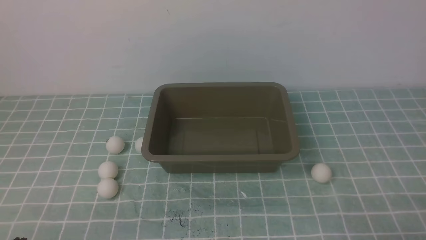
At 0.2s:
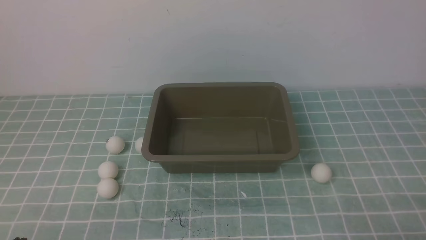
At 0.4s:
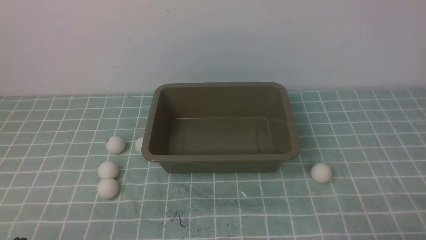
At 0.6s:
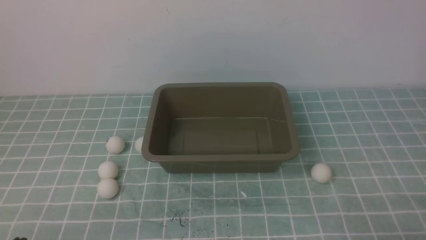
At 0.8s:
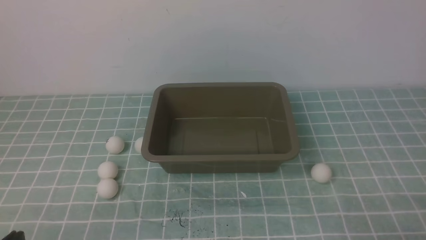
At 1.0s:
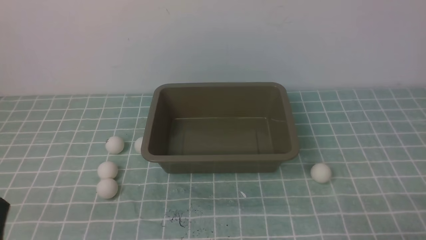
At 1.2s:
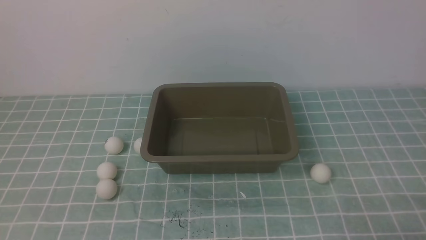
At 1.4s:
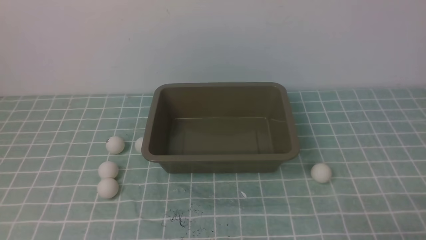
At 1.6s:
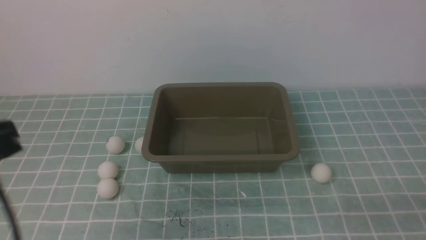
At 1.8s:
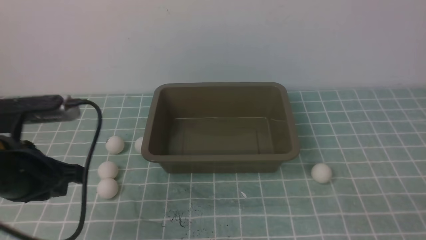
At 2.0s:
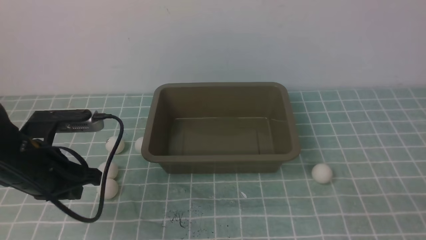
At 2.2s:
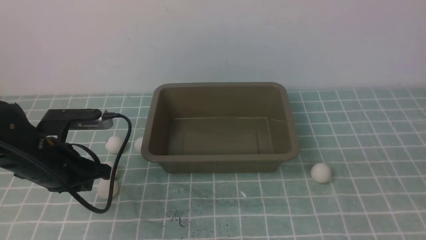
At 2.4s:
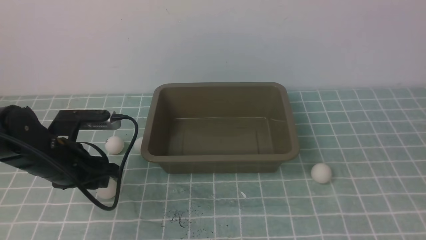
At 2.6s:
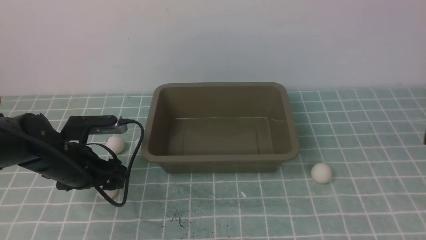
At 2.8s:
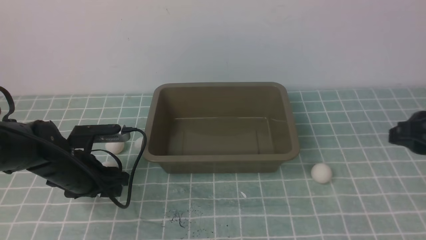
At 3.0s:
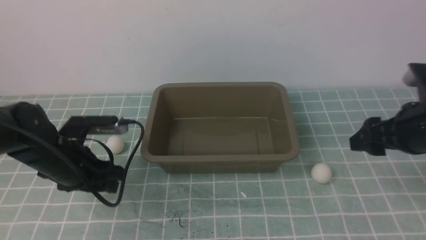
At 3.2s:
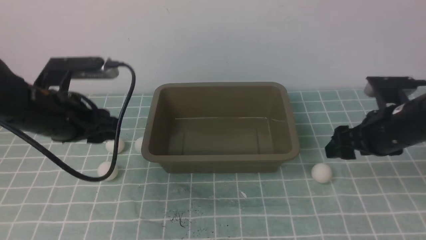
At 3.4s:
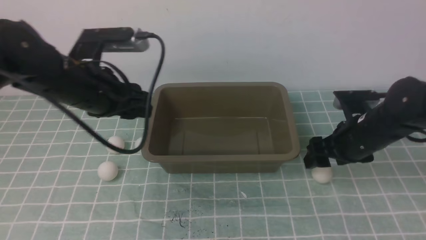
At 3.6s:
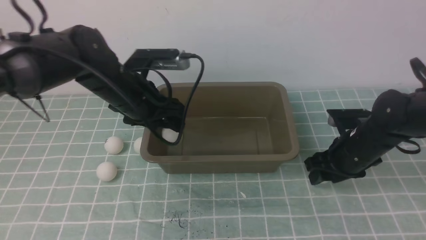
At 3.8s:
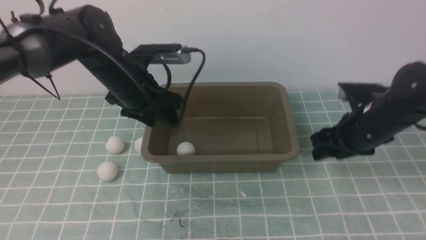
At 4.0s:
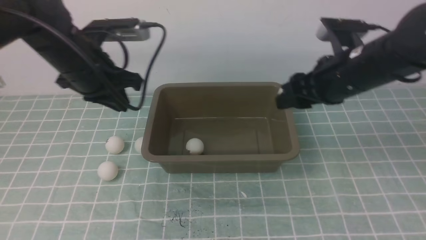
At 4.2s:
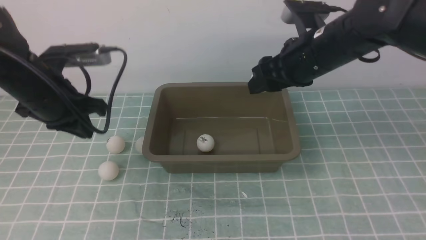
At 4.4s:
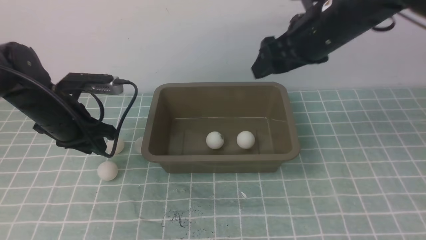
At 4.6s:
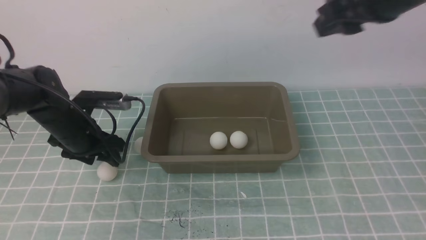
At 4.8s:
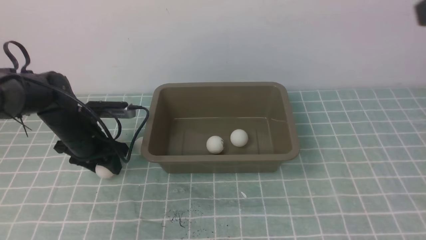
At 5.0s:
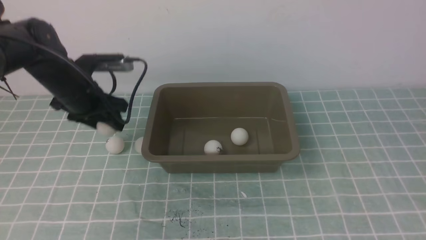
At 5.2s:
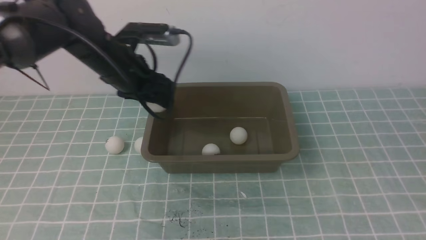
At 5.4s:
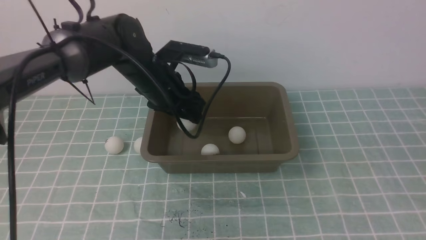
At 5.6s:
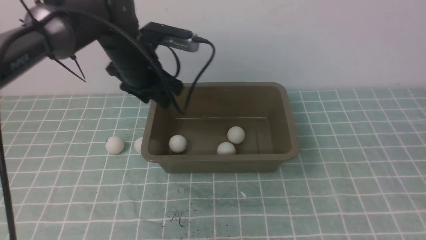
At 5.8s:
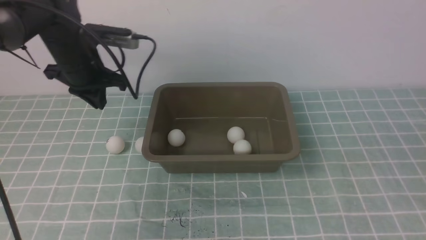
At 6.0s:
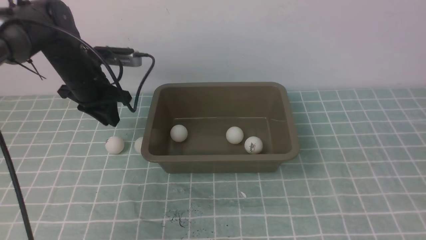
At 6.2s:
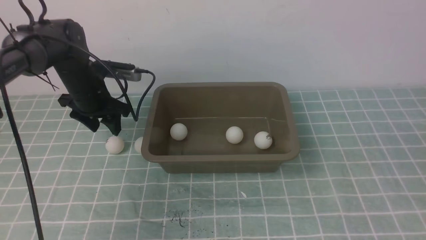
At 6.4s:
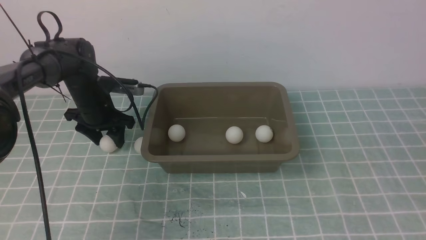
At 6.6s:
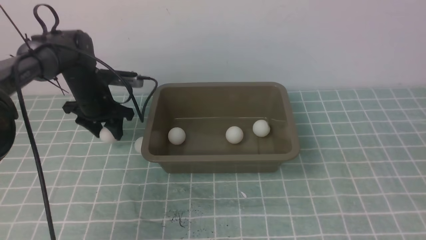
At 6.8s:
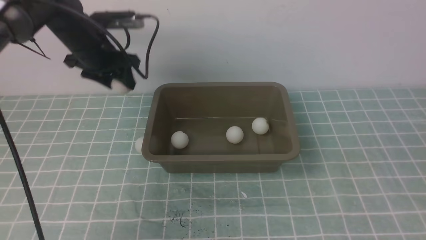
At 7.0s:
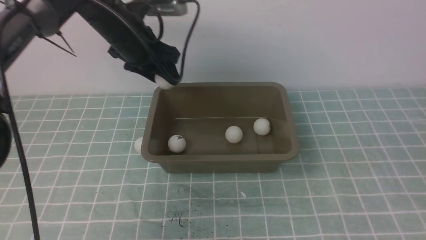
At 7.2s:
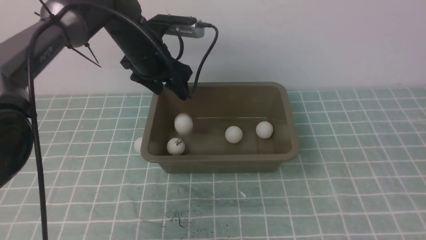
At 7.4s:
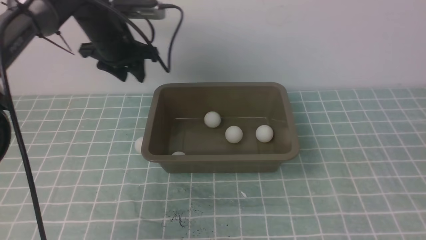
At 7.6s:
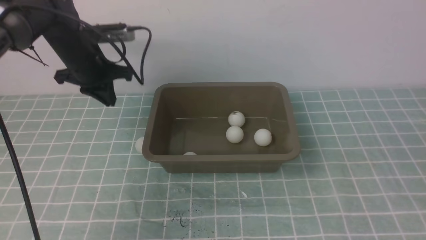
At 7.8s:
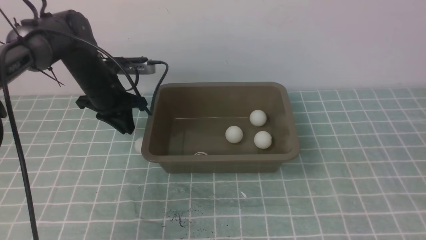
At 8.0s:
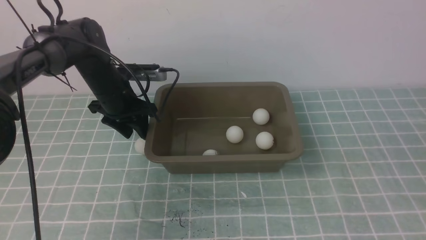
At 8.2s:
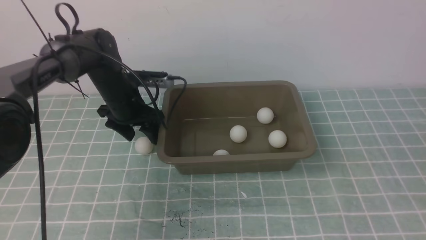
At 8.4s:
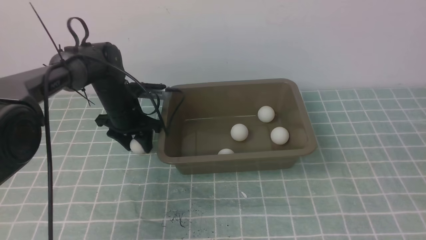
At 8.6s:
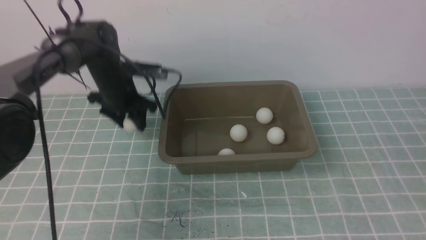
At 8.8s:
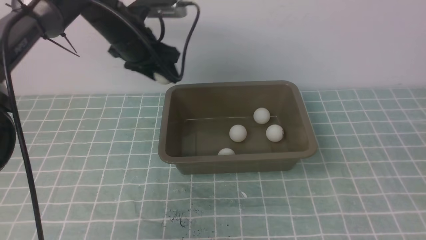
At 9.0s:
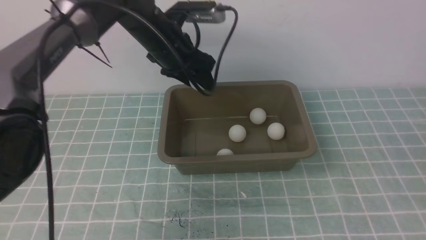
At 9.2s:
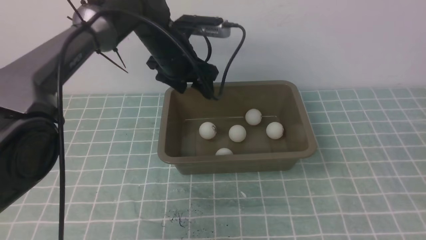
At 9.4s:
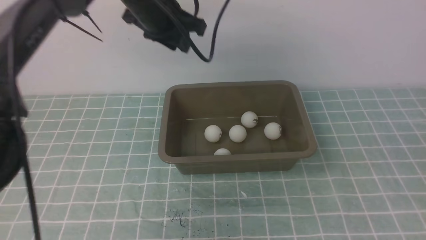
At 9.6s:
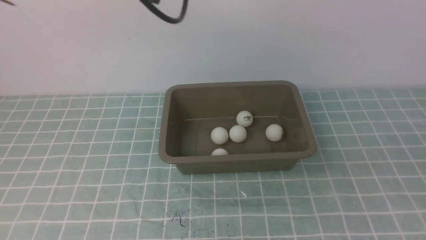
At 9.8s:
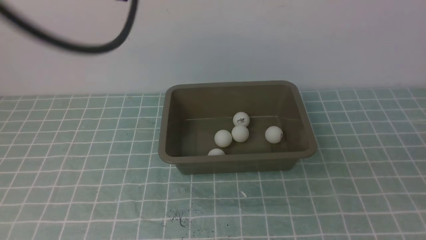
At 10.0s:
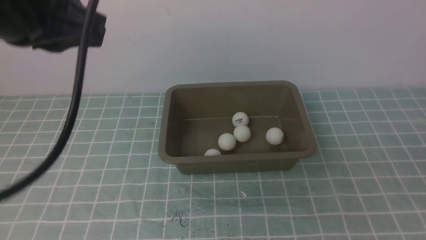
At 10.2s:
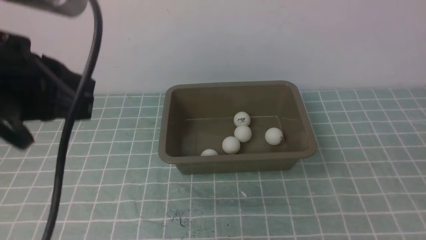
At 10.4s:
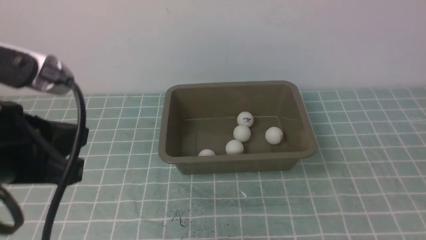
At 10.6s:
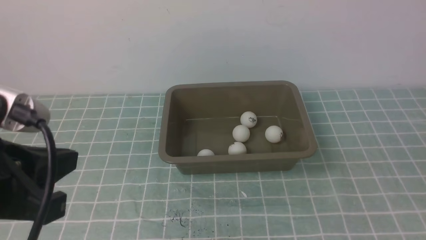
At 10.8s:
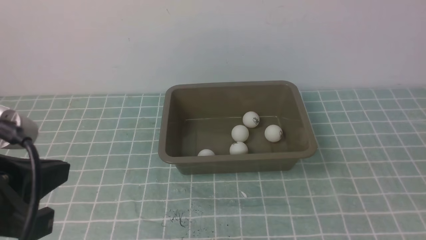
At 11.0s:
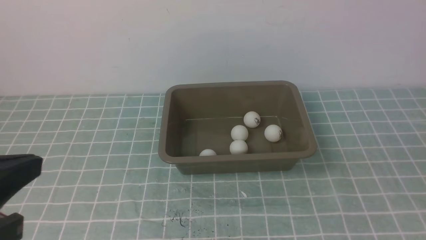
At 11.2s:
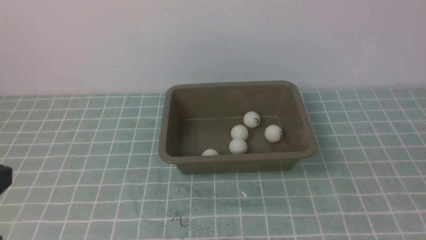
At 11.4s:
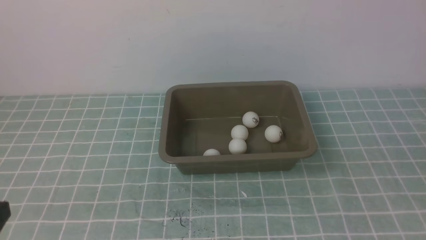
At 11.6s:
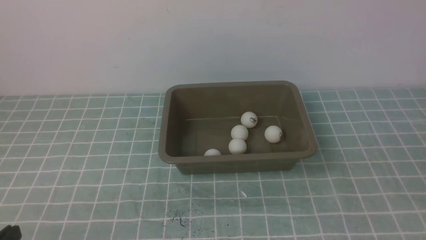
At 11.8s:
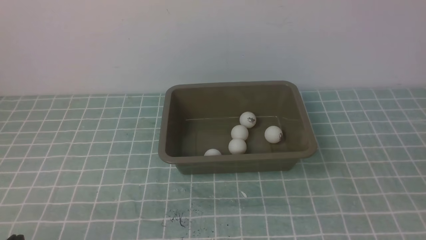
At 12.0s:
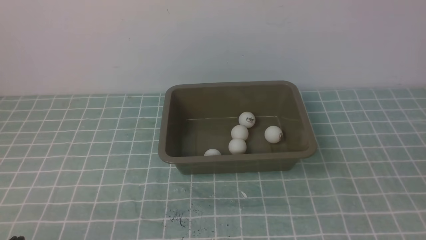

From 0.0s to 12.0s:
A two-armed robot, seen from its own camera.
Step, from 0.0s to 2.6s: use the left arm to clamp the table tennis ball closest to it.
Step, from 3.0s to 3.2s: use the left arm to put the table tennis ball into the box.
Step, from 3.4s to 4.0s: use the right arm to clamp the table tennis ball closest to it.
Step, from 4.2s to 4.6s: use the right arm to put the table tennis ball into the box.
Step, from 5.0s to 5.4s: use the left arm to put the table tennis ball into the box.
Step, from 5.6s to 6.8s: use the left arm to clamp the table tennis ball closest to it.
Step, from 7.0s to 7.4s: use the left arm to put the table tennis ball into the box.
Step, from 7.6s to 8.6s: use the left arm to clamp the table tennis ball closest to it.
Step, from 9.0s to 9.2s: use the left arm to put the table tennis ball into the box.
From 0.0s to 1.6s: The left gripper goes roughly 20 cm upward and forward.
From 1.6s to 3.0s: The right gripper is displaced forward by roughly 20 cm, and opens its fingers. The left gripper moves forward and downward, about 20 cm, and opens its fingers.
From 3.0s to 4.4s: The left gripper is displaced forward by some 5 cm, goes to the right and returns, about 5 cm each way, and closes, then opens again. Meanwhile the right gripper goes about 20 cm upward, to the left and forward.
From 4.4s to 6.0s: The right gripper is displaced backward and to the right by approximately 35 cm, and closes; the left gripper moves forward, some 10 cm, and travels to the right and back again, some 10 cm each way.
From 6.0s to 7.6s: The left gripper goes up and down, some 10 cm each way, reversing 2 times, and opens and closes again.
From 7.6s to 9.0s: The left gripper goes approximately 10 cm to the right, and opens up.
From 9.0s to 10.4s: The left gripper moves backward, approximately 30 cm, and closes.
From 10.4s to 12.0s: The left gripper shifts about 20 cm downward and backward.

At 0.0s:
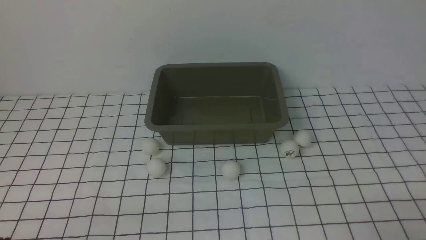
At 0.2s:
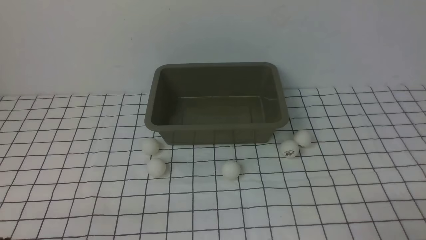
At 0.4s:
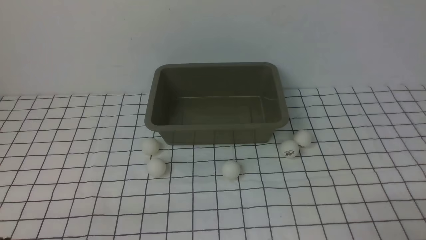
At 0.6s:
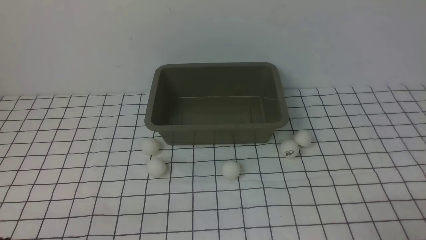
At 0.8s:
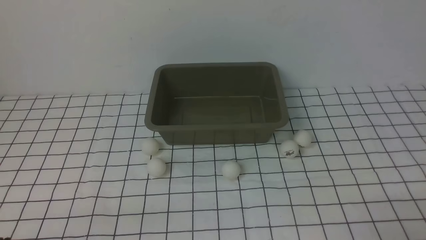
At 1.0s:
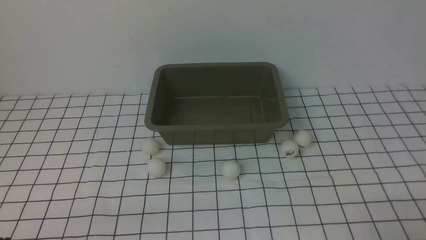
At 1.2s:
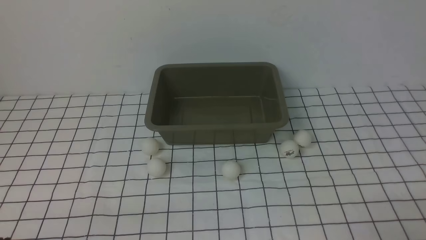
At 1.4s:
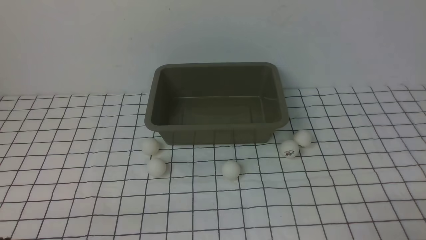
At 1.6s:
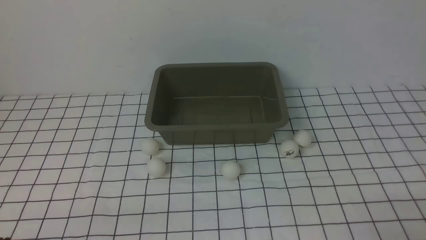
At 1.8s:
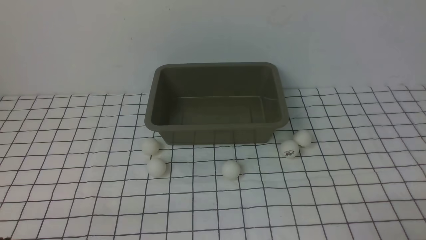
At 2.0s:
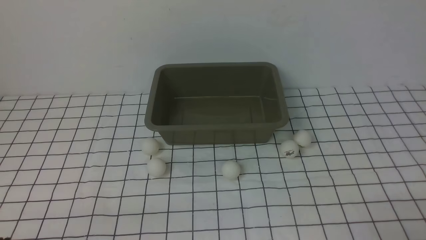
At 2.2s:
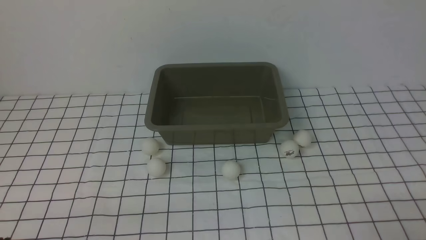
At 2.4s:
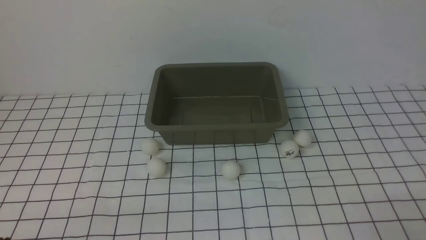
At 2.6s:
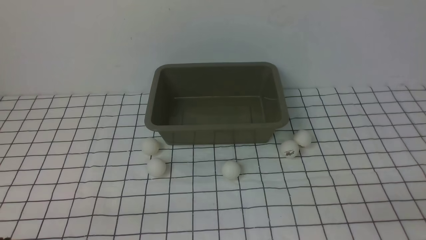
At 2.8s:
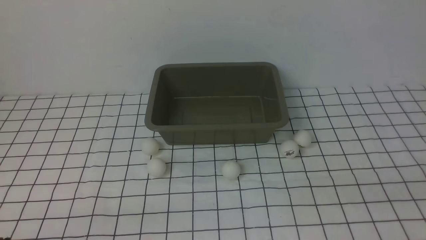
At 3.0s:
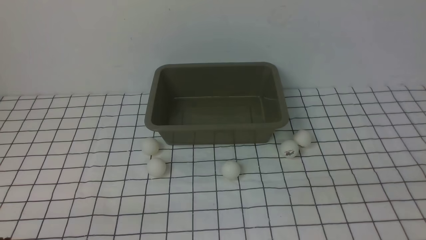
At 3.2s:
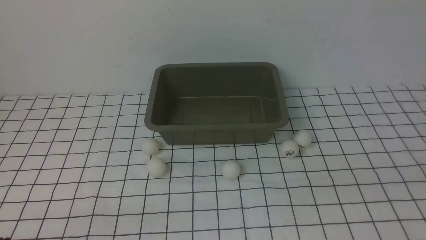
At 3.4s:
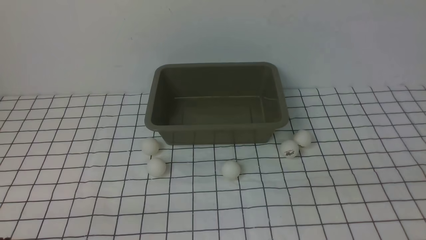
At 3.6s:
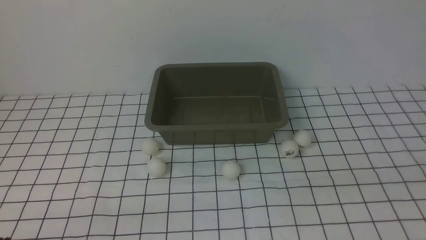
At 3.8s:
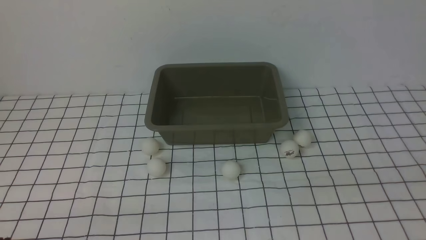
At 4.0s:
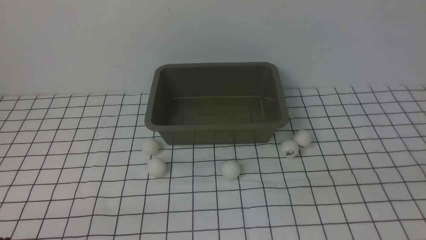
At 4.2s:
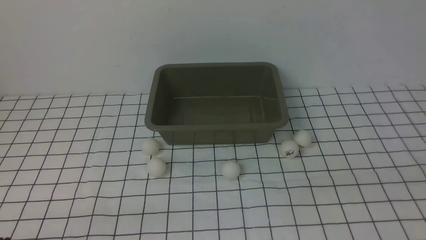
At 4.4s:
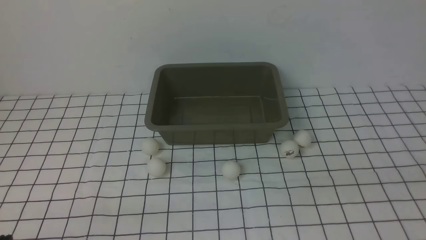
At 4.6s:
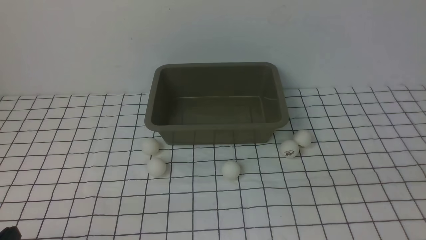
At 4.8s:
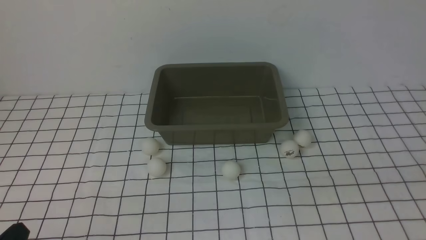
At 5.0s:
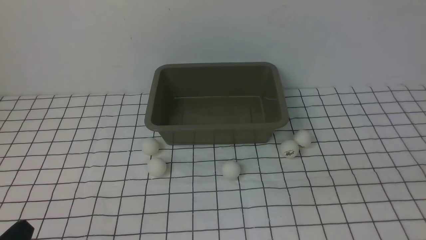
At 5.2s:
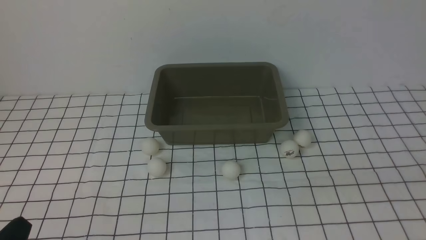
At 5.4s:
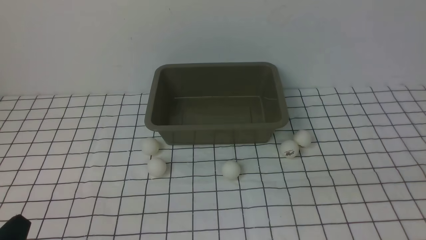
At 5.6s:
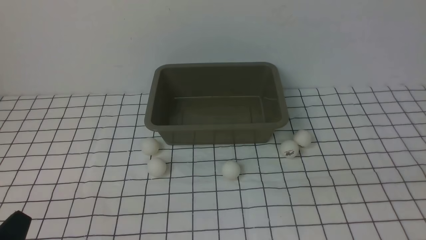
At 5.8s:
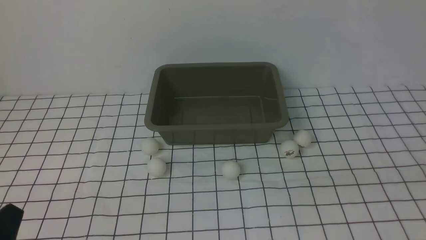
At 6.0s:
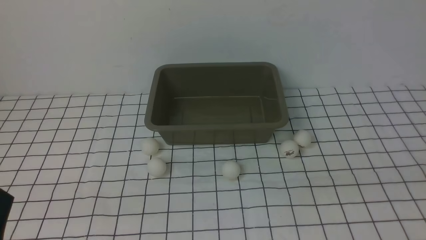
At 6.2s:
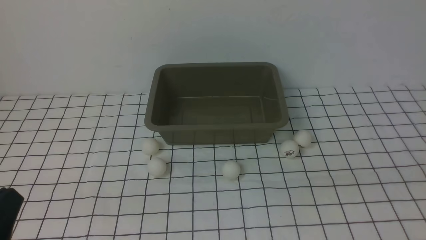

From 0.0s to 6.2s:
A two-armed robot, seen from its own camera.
From 0.0s to 1.6s: Both grippers stay put.
From 4.6s to 6.2s: The left gripper moves upward, some 5 cm.
